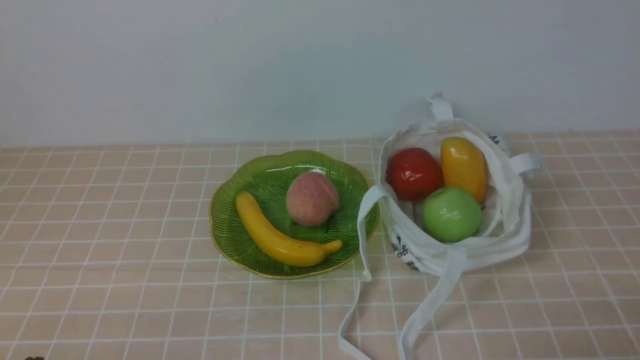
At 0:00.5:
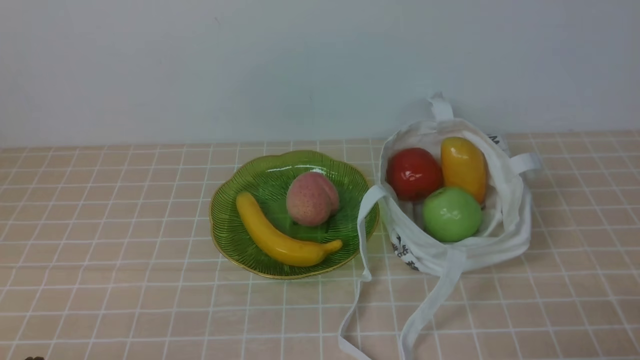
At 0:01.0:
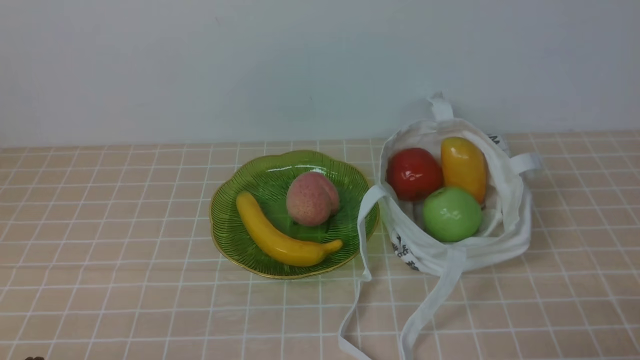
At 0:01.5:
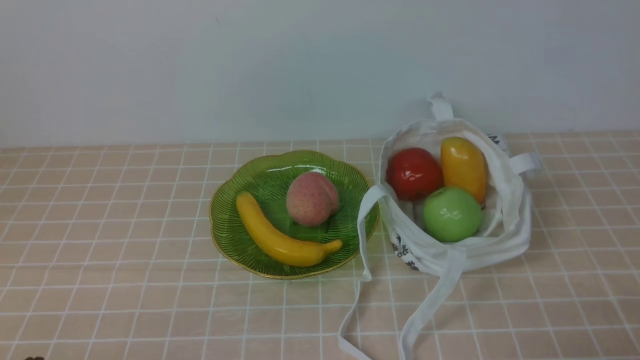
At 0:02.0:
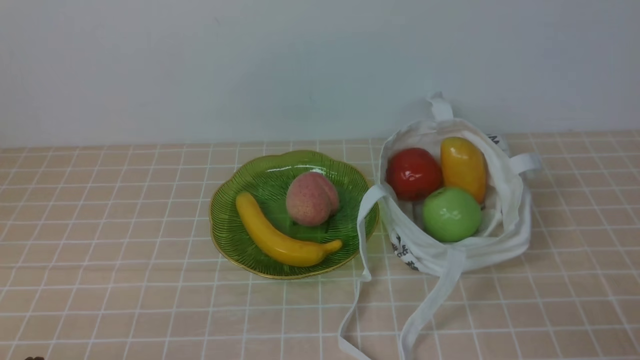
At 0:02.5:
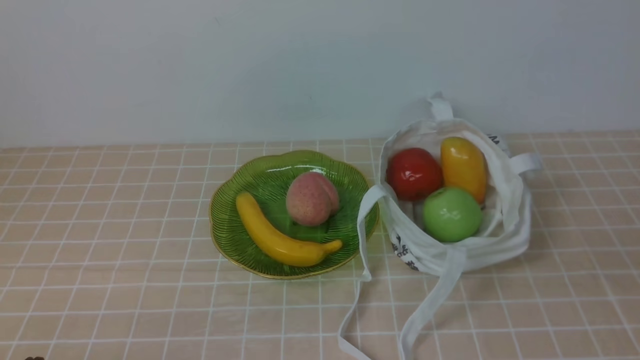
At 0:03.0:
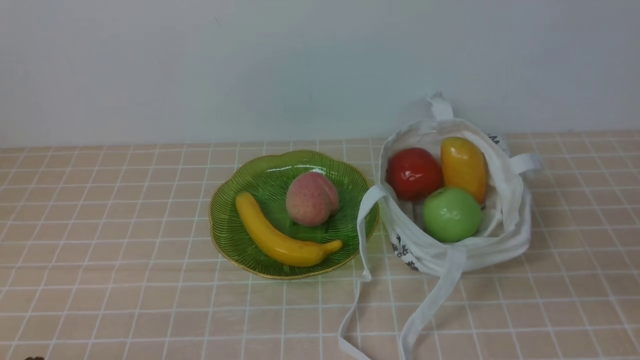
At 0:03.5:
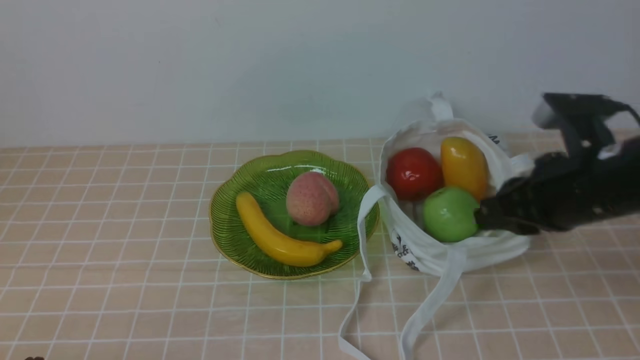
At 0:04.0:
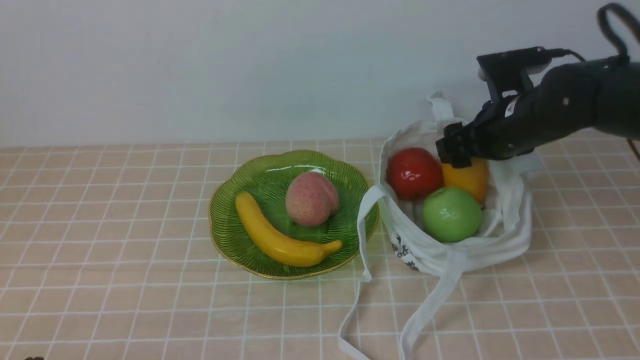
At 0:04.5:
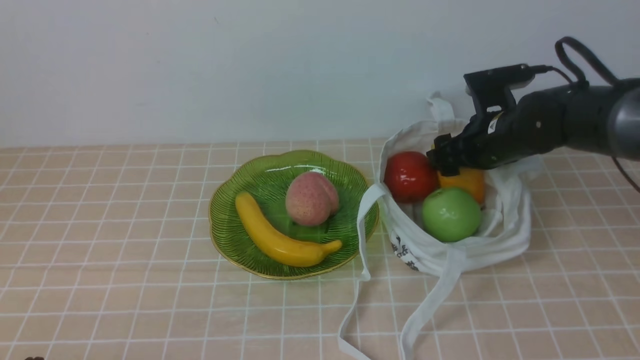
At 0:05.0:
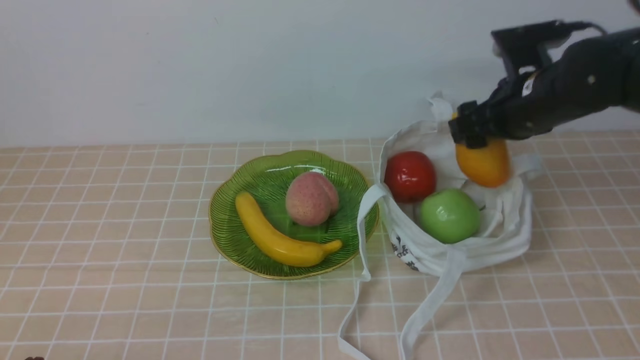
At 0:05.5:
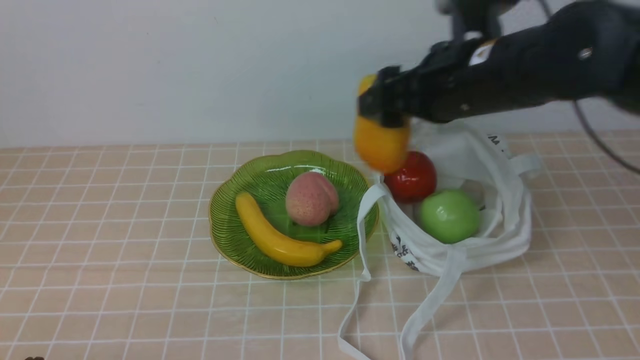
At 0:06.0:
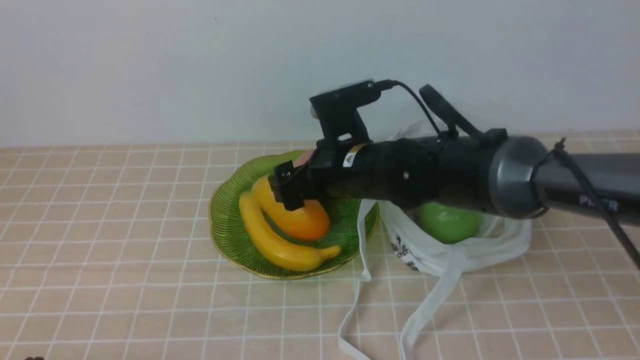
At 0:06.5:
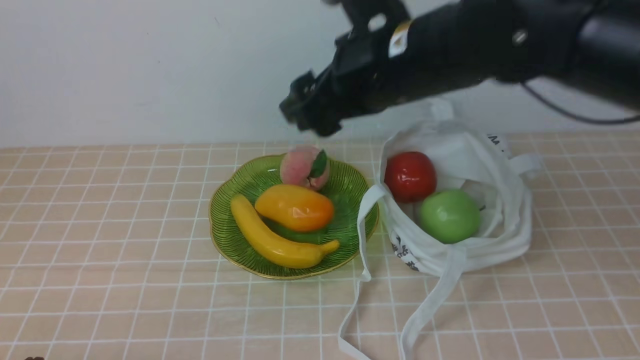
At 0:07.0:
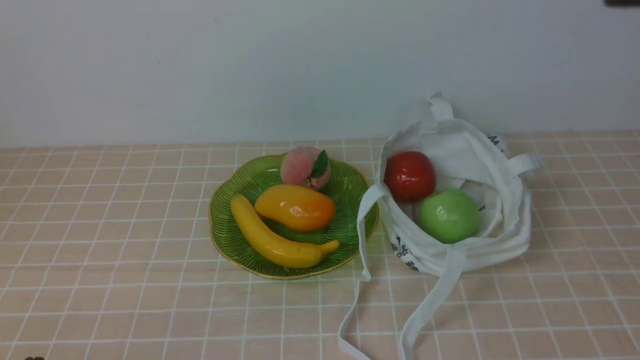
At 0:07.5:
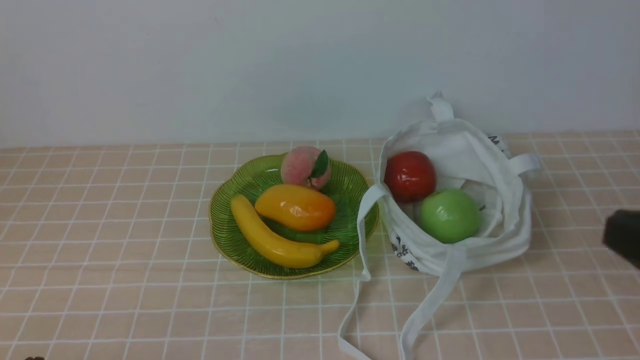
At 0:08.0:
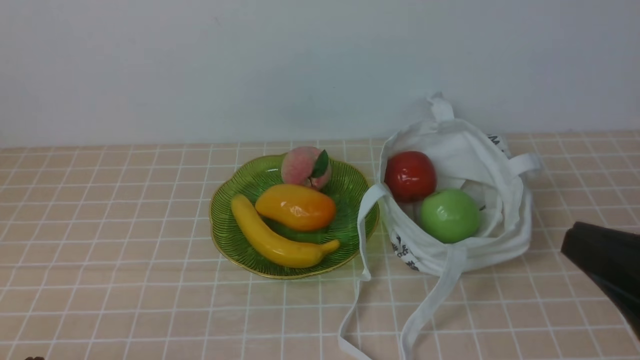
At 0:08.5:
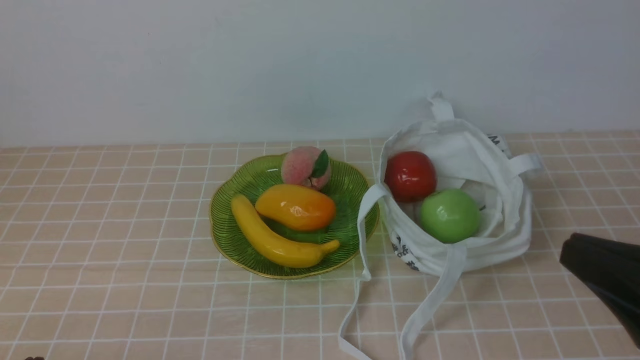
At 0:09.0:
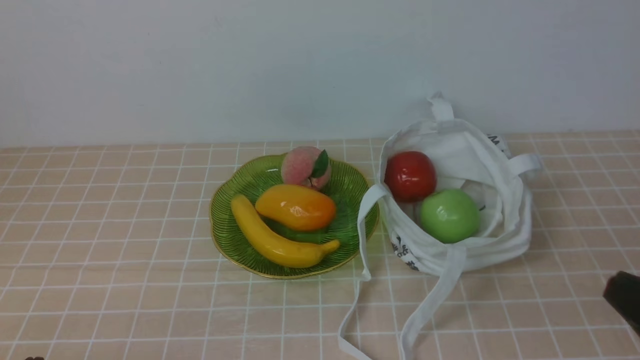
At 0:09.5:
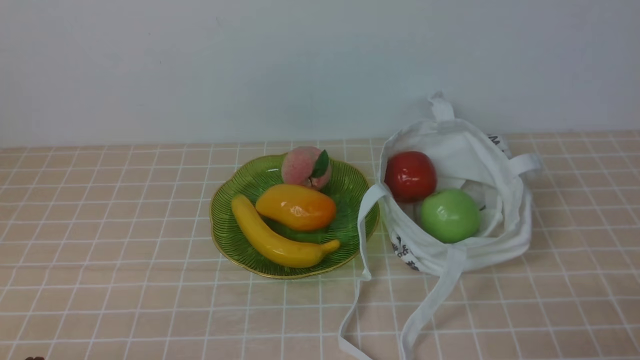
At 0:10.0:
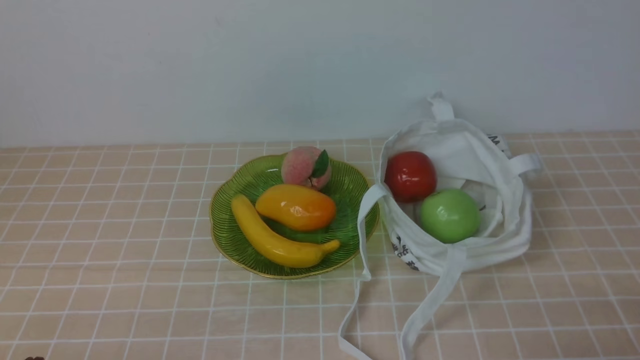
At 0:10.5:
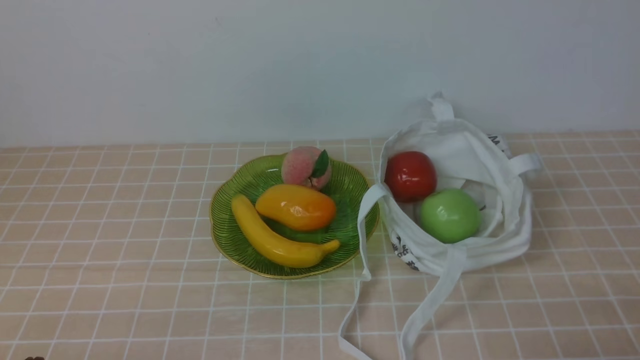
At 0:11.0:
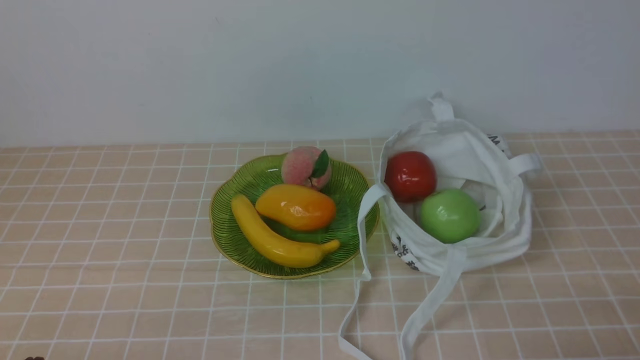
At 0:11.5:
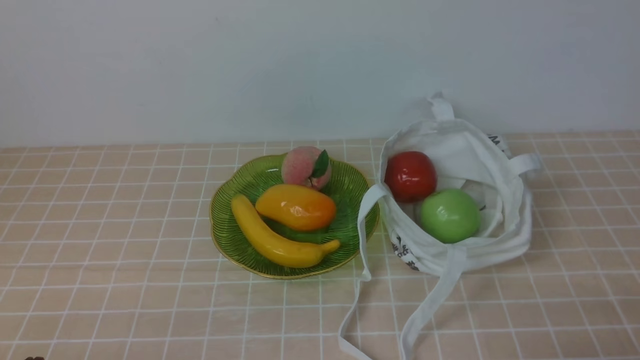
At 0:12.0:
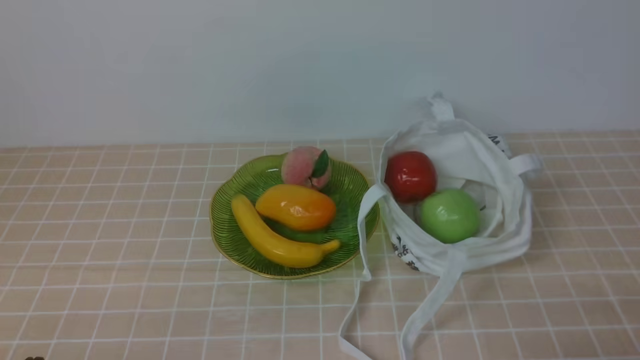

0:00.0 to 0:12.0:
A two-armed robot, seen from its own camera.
Step, 0:00.0 to 0:05.0: use the right arm to grab a mango from the bag.
Step, 0:05.5 to 0:06.0: use the right arm to put the mango into the empty plate on the left.
0:02.0 to 0:04.0: The right gripper goes roughly 35 cm forward, and opens its fingers.
0:04.0 to 0:06.0: The right gripper shifts some 20 cm to the left.
0:06.0 to 0:08.0: The right gripper moves backward and to the right, some 35 cm, goes upward and returns, roughly 25 cm each way, and closes.
0:08.0 to 0:10.0: The right gripper heads downward and to the right, covering approximately 15 cm.
0:10.0 to 0:12.0: Neither gripper changes place.

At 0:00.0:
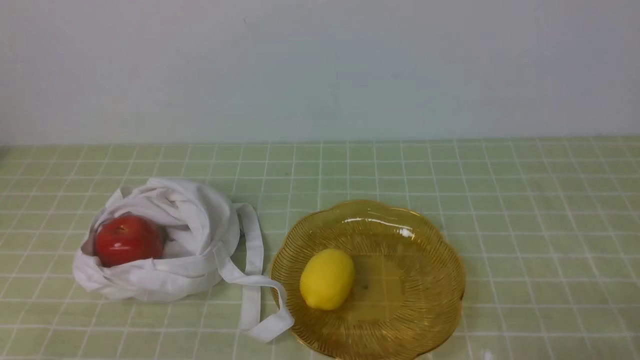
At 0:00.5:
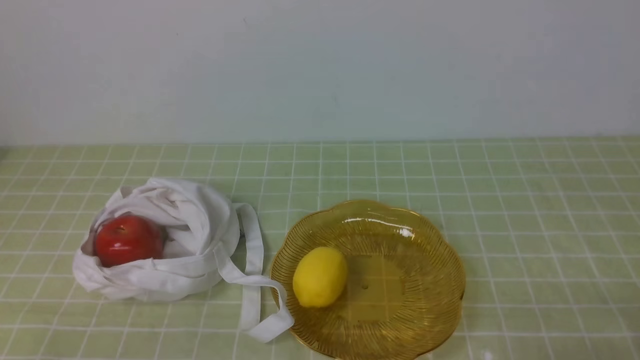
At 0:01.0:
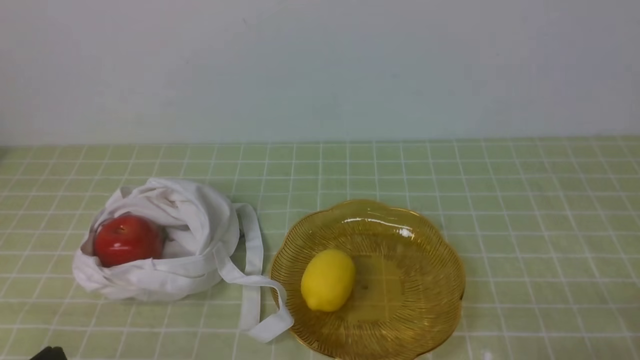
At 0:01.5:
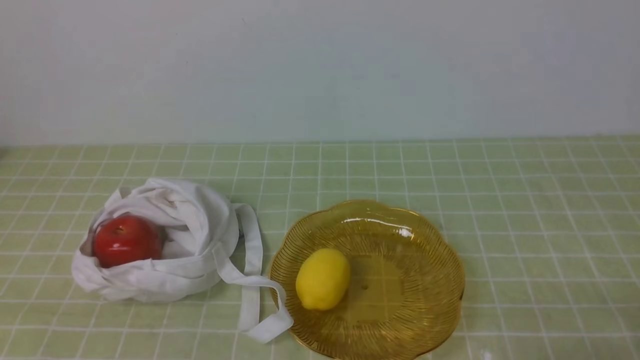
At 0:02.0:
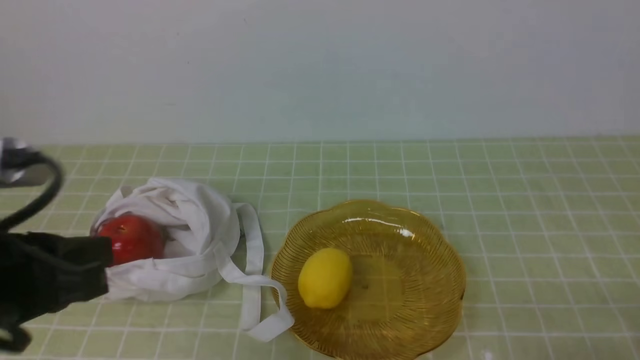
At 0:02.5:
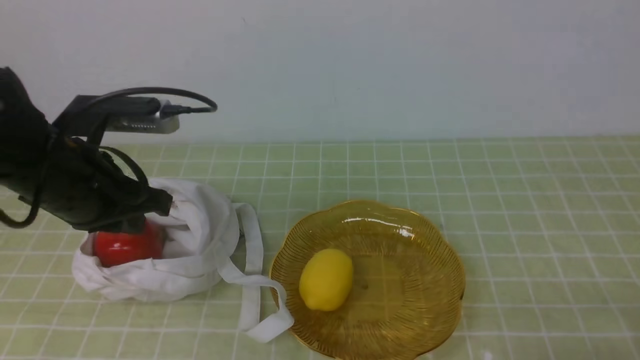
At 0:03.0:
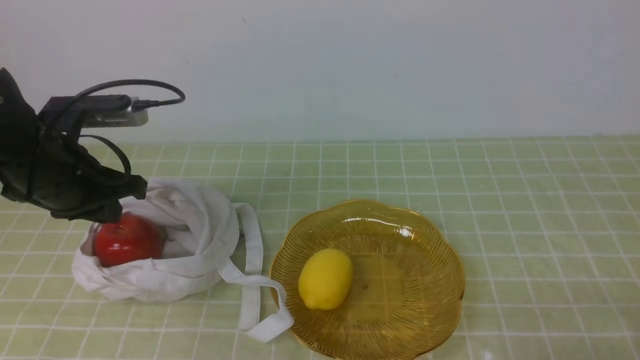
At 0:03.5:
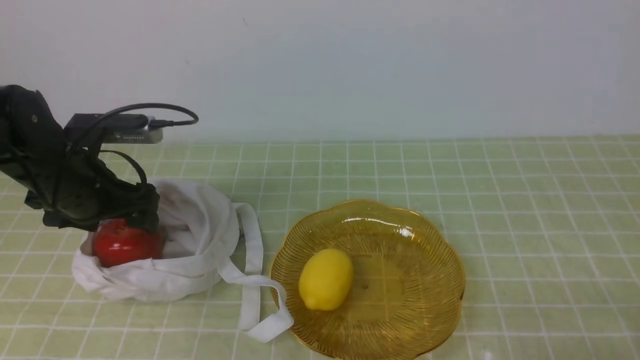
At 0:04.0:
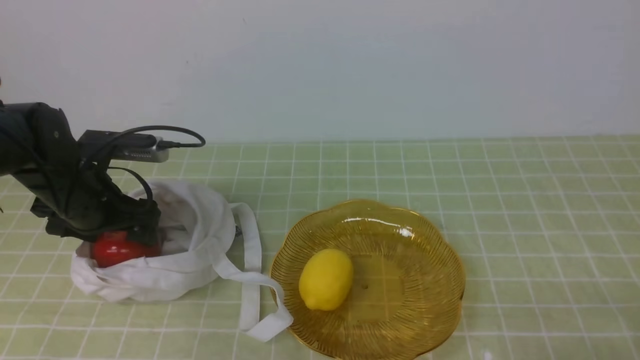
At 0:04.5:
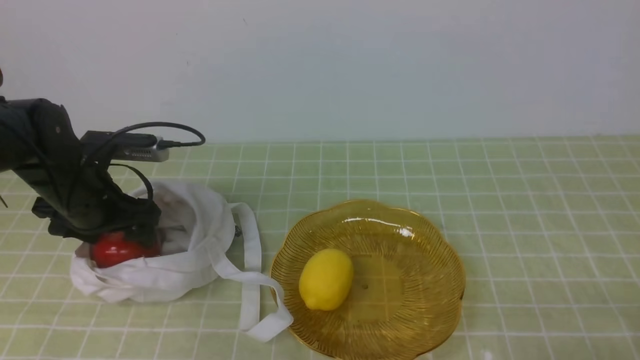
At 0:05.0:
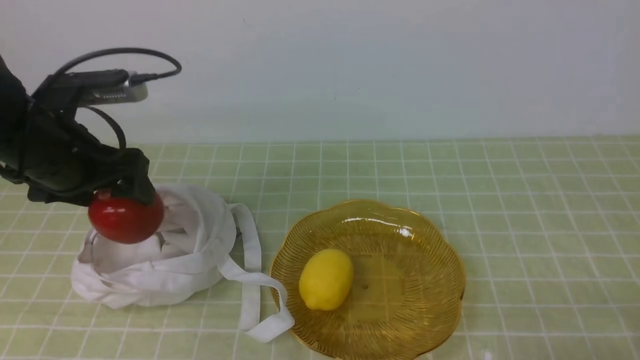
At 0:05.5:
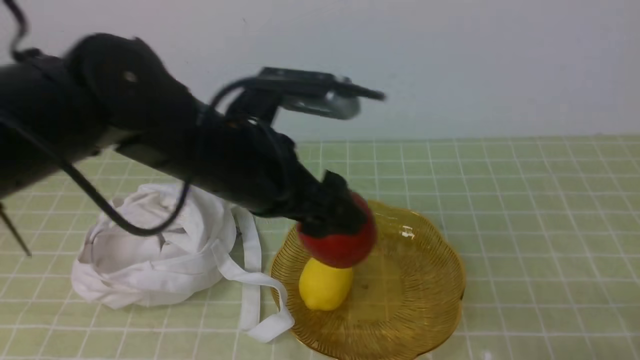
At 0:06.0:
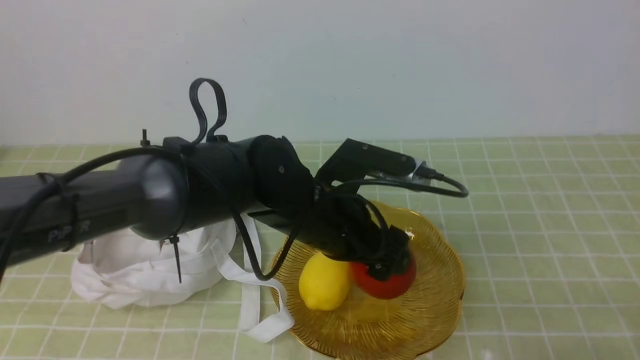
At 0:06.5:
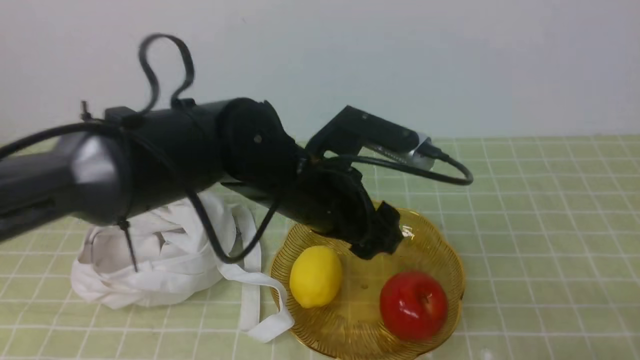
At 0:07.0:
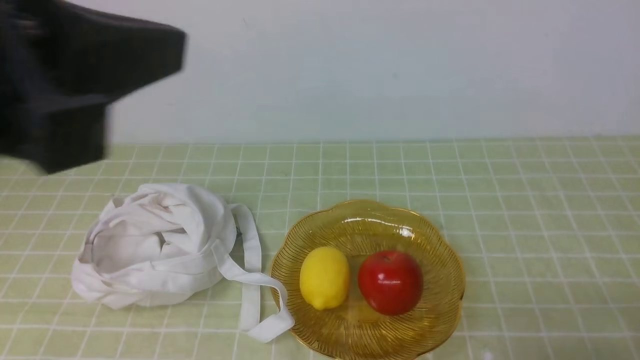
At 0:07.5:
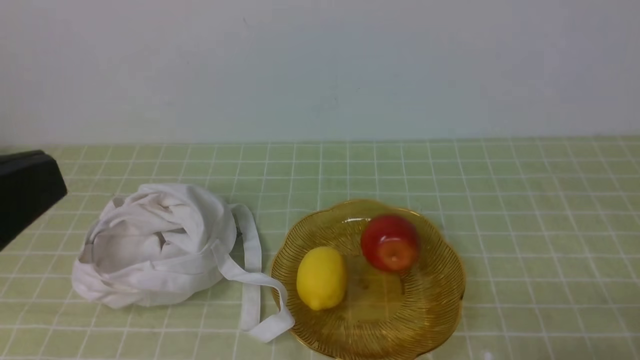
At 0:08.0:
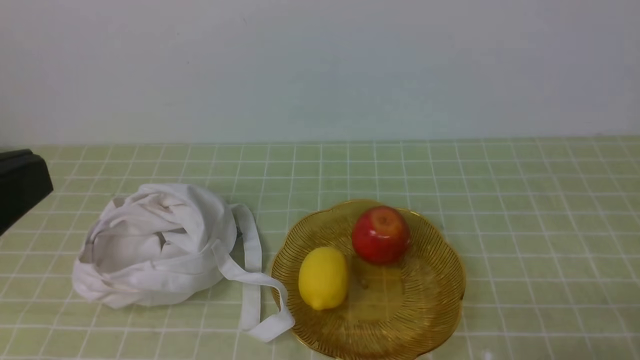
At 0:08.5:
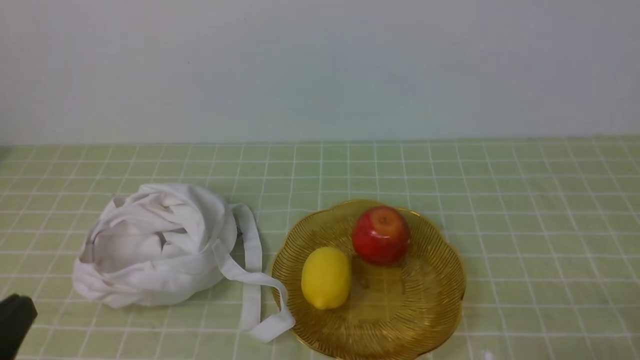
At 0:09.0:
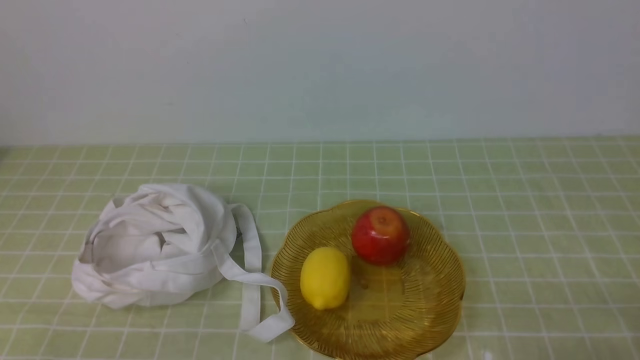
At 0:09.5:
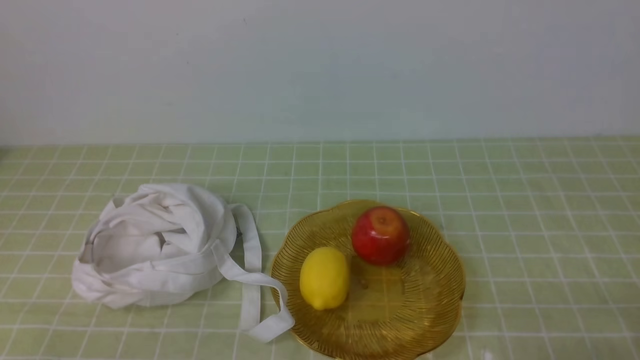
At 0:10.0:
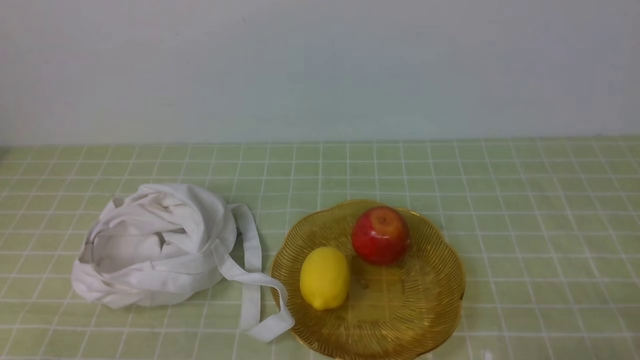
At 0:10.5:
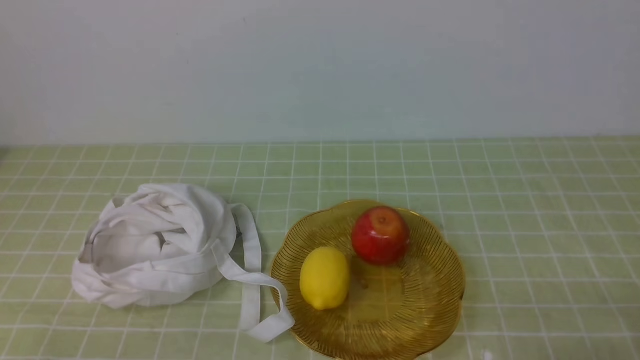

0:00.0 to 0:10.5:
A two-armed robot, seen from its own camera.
Step, 0:00.0 to 0:04.5: use the left arm to grab an apple from the bag.
Step, 0:05.0 to 0:06.0: use the left arm to put the apple into the empty plate on the right.
0:02.0 to 0:04.0: The left gripper goes roughly 25 cm forward and downward, and opens its fingers.
0:04.0 to 0:06.5: The left gripper heads to the right, covering about 25 cm.
0:06.5 to 0:08.5: The left gripper shifts approximately 35 cm backward and to the left, and closes up.
0:08.5 to 0:10.5: The left gripper heads downward, covering some 15 cm.
